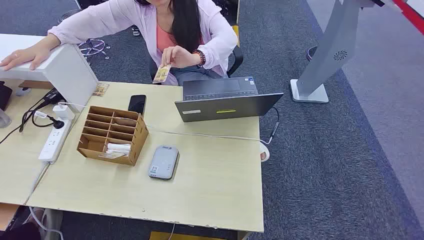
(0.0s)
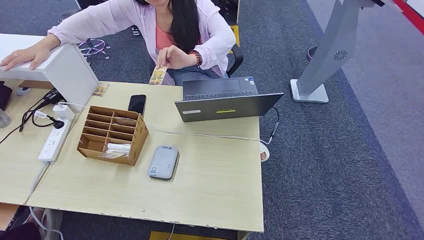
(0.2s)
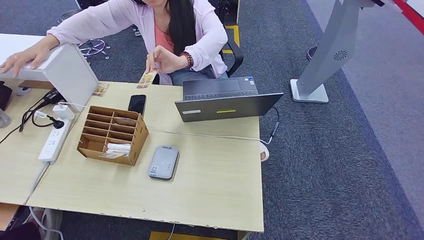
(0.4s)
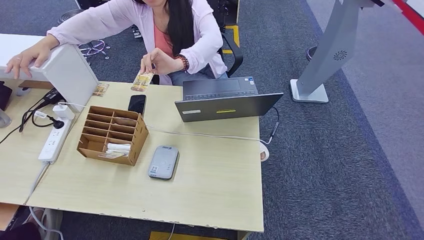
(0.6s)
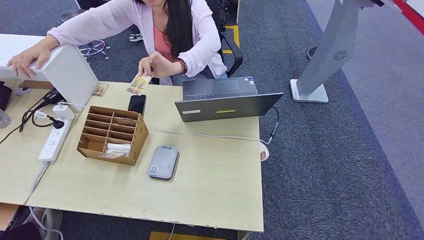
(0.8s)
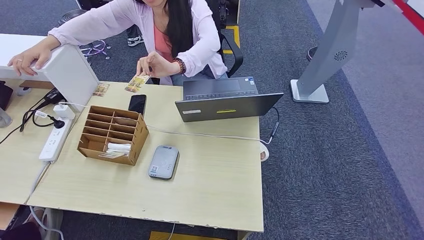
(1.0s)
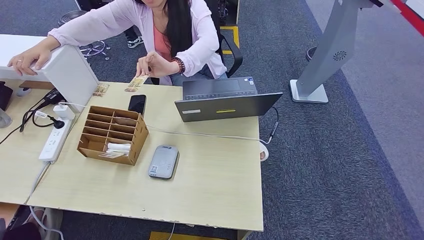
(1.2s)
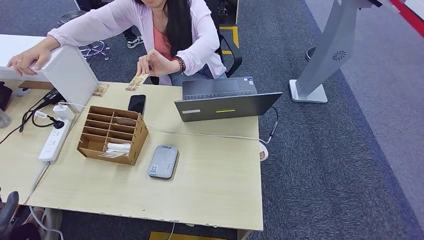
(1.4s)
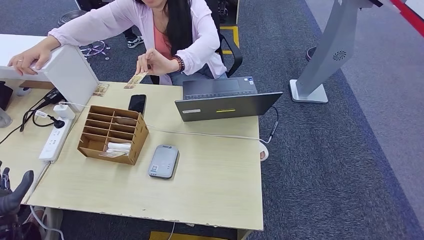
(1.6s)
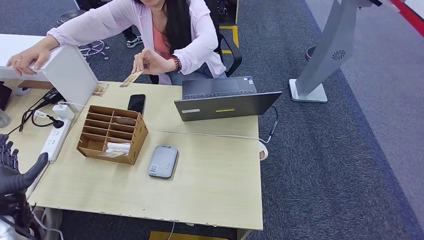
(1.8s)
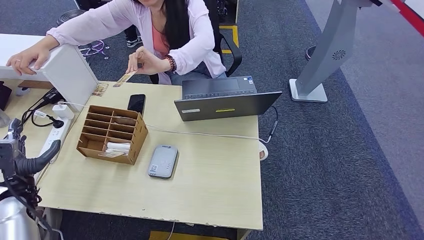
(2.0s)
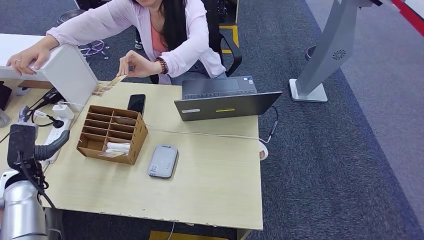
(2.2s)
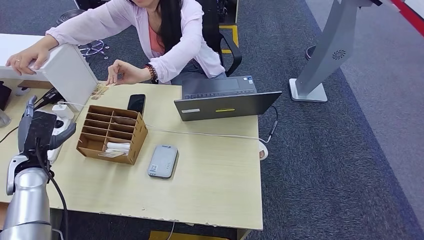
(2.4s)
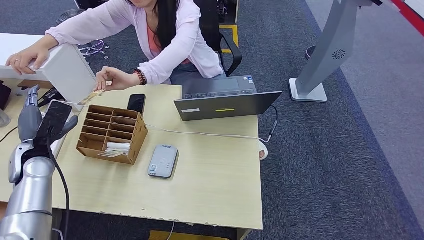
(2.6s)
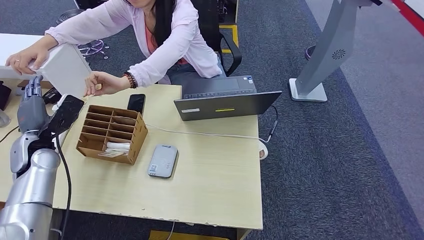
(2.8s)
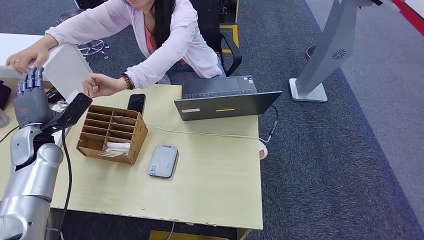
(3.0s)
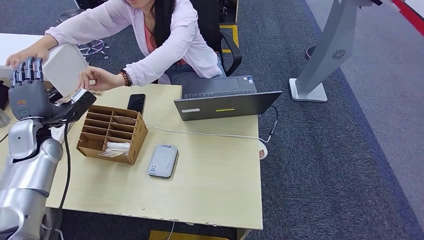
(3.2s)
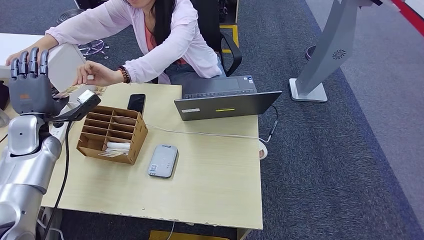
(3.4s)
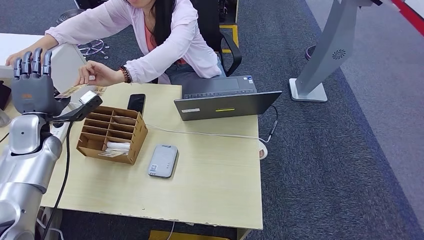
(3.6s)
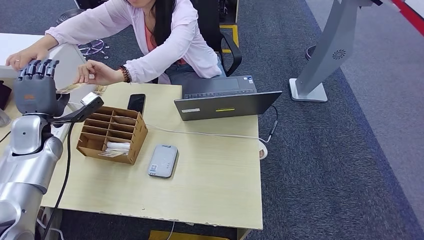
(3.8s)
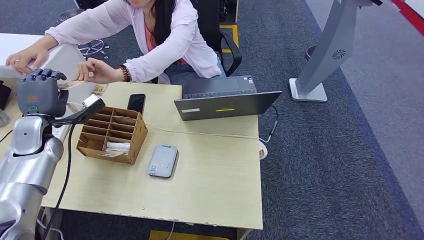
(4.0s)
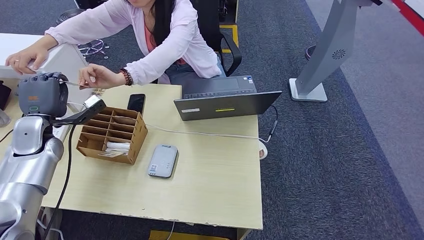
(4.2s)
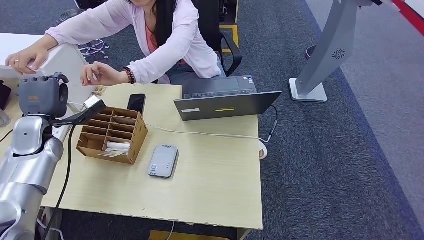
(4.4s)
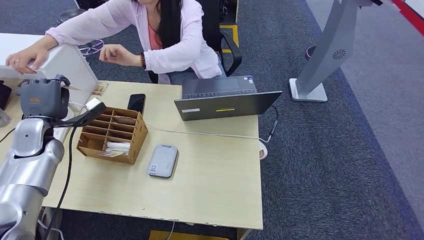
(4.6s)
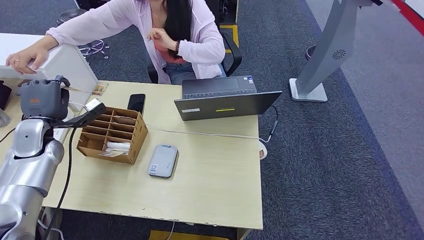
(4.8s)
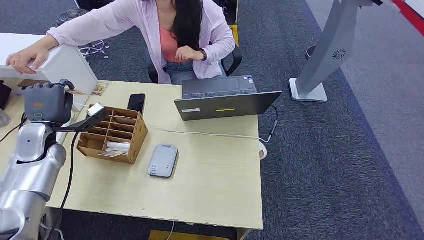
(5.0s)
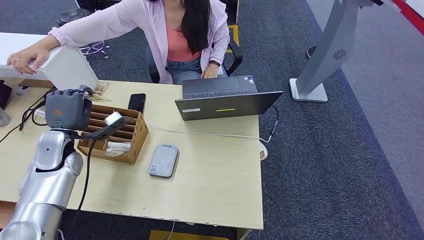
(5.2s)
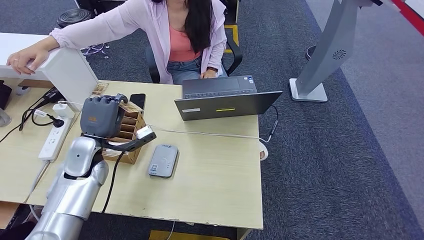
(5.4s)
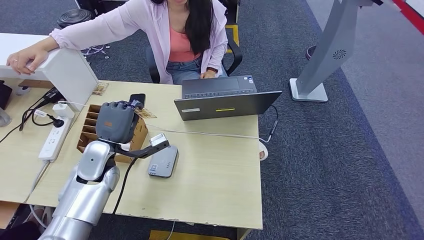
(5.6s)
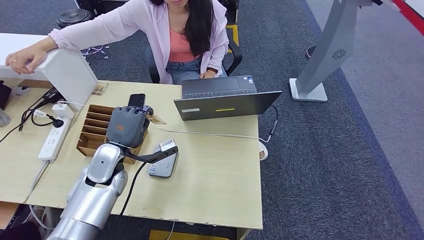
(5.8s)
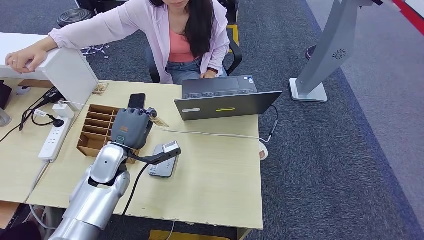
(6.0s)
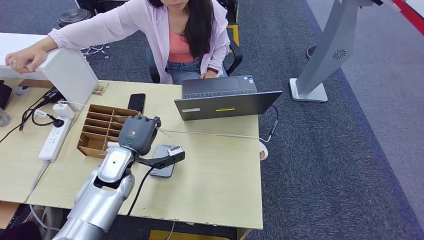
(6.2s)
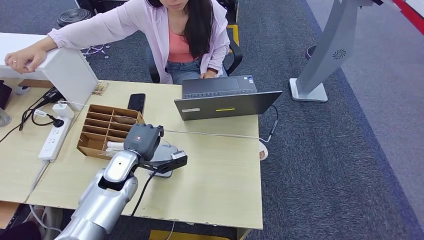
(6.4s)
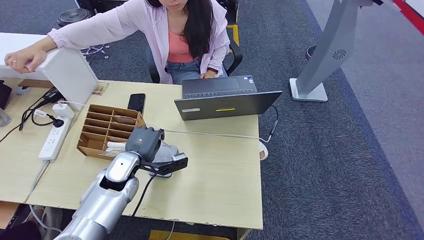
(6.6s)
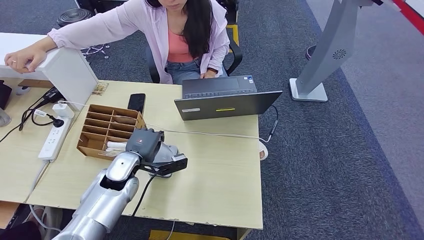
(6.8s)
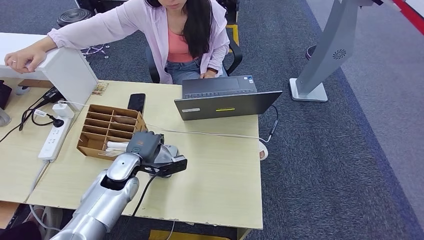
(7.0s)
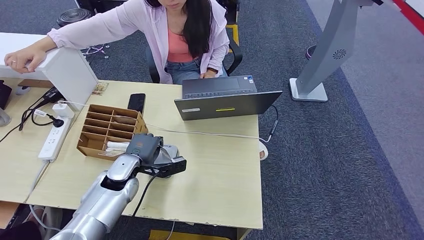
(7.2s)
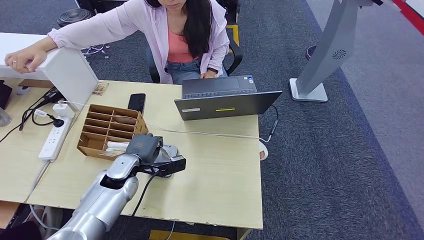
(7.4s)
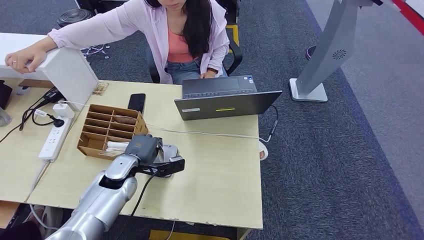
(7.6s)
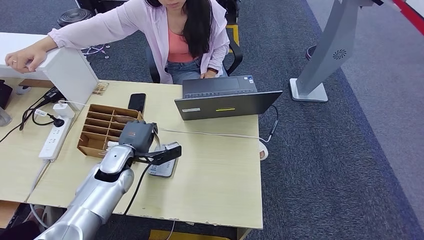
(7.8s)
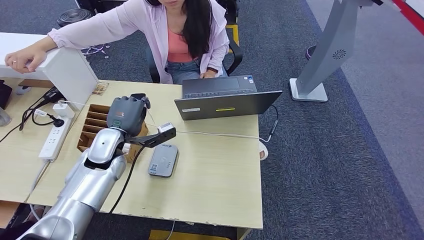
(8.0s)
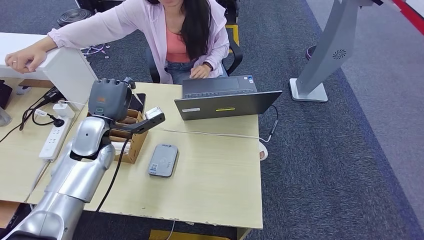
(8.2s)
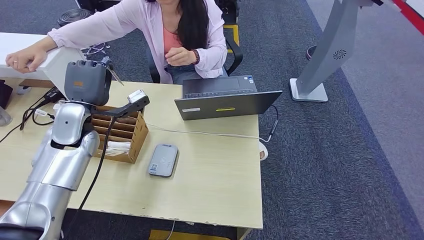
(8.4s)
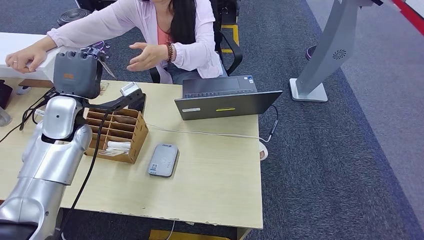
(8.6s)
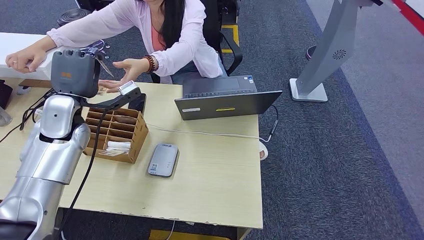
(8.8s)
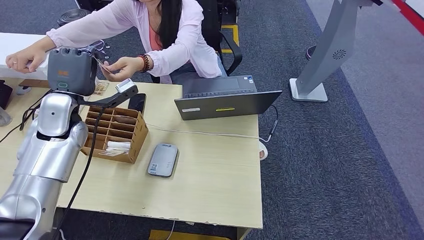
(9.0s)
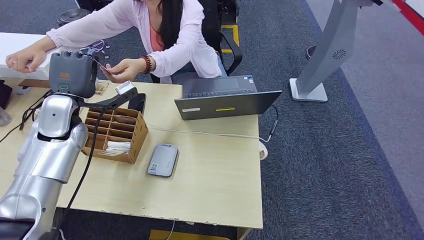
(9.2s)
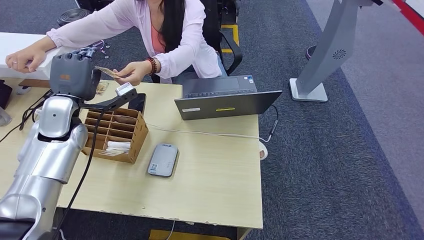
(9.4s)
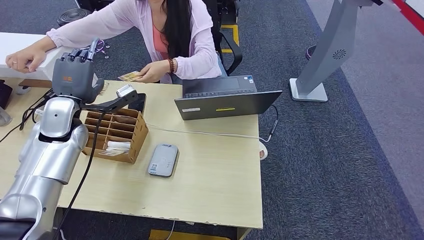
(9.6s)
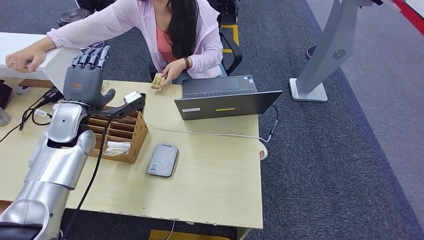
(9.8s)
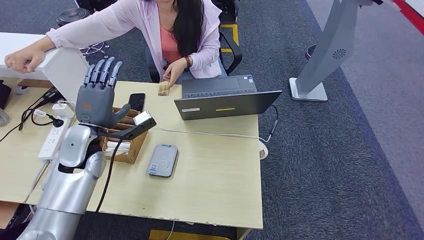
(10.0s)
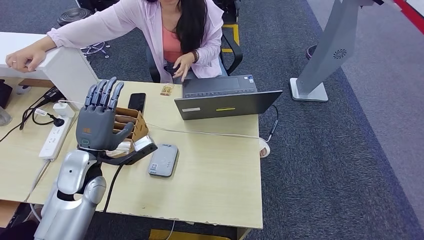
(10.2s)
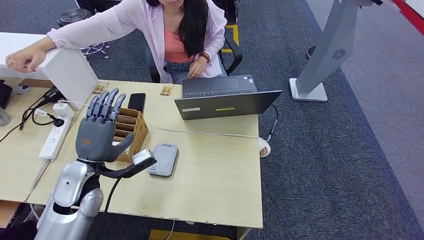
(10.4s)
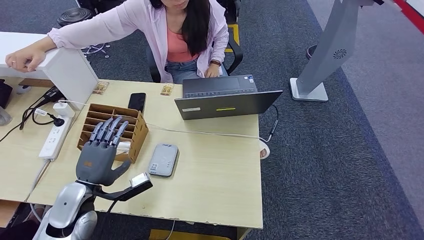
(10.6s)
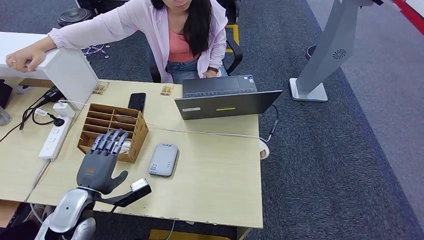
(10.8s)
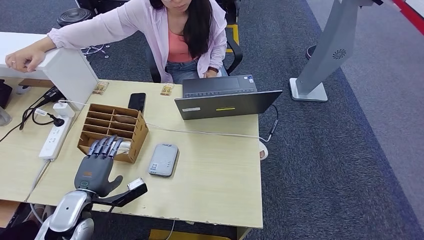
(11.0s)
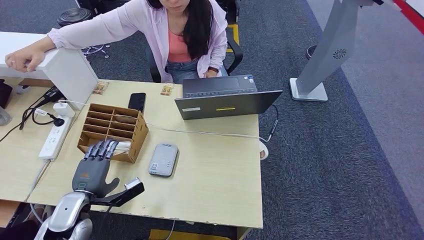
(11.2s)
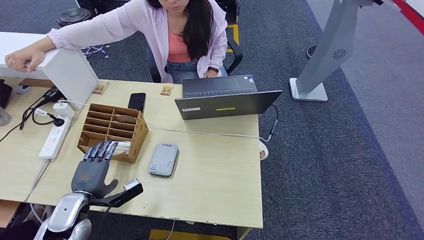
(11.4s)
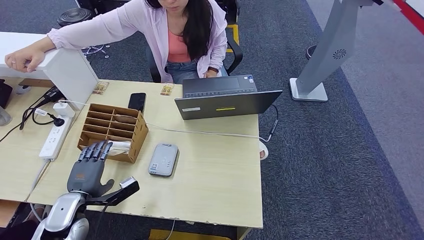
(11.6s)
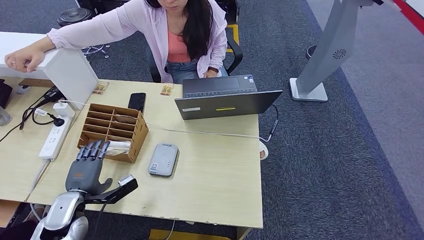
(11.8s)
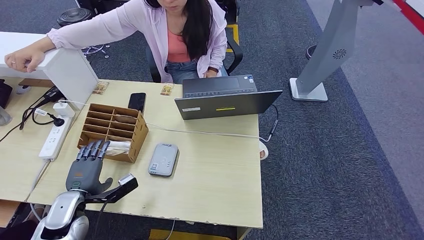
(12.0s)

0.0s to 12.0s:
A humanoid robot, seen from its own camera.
Step, 0.0s to 4.2s: Take the ID card from the person's hand.
Step, 4.8s to 7.6s: Place the ID card on the card reader.
Step, 7.8s to 9.4s: Hand the ID card to the person.
1.6s to 3.0s: The left hand heads forward, upward and to the right, covering roughly 25 cm.
6.0s to 7.6s: The left hand travels downward by some 5 cm.
10.4s to 12.0s: The left hand goes approximately 10 cm downward and to the left.

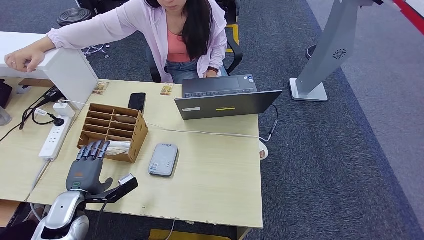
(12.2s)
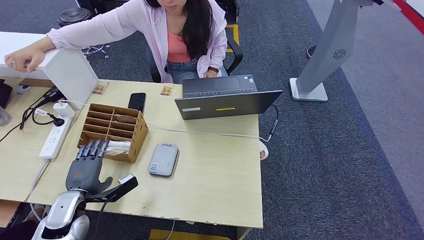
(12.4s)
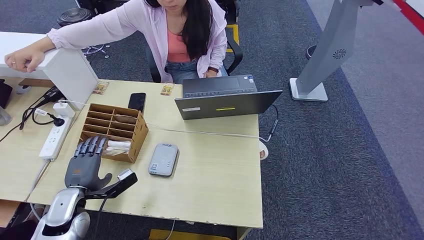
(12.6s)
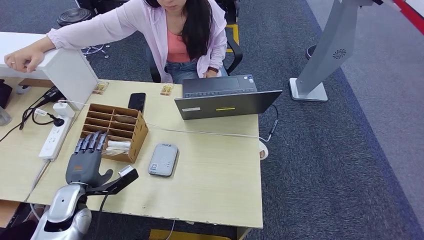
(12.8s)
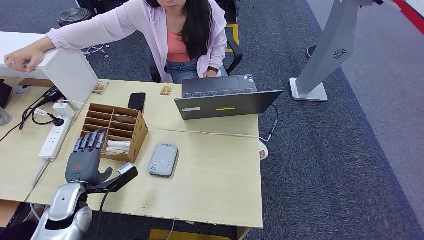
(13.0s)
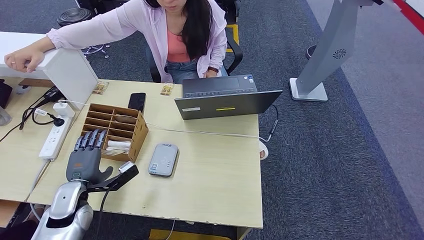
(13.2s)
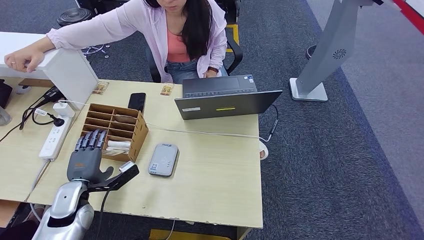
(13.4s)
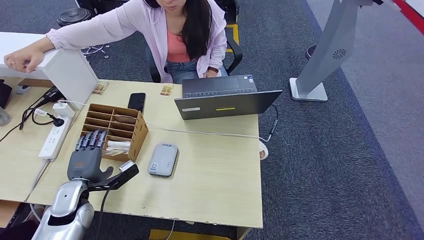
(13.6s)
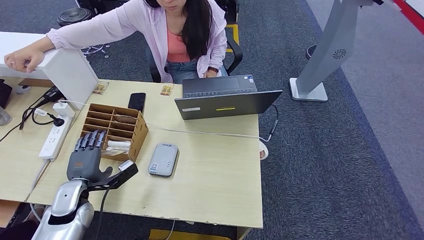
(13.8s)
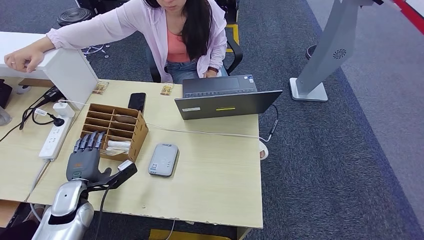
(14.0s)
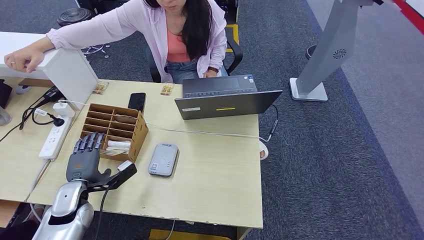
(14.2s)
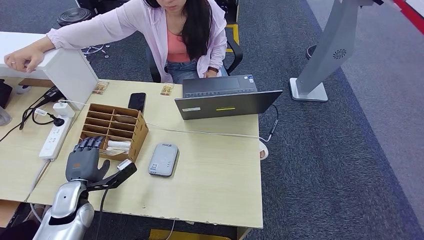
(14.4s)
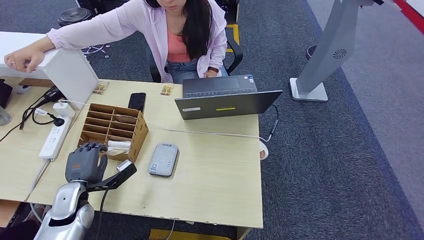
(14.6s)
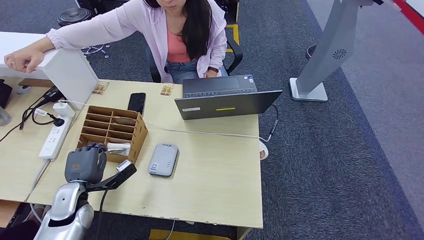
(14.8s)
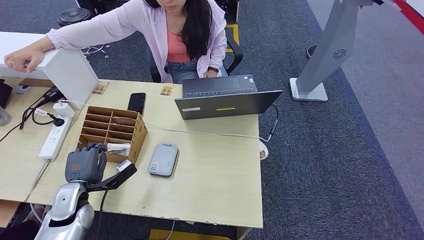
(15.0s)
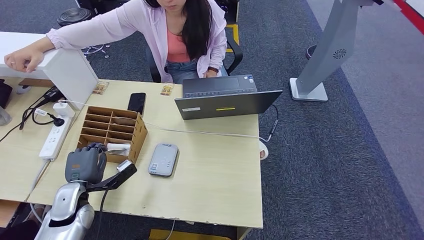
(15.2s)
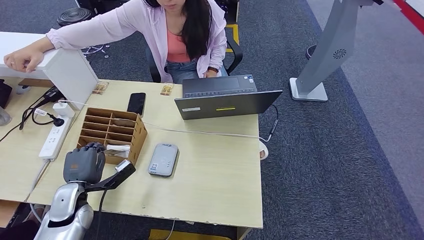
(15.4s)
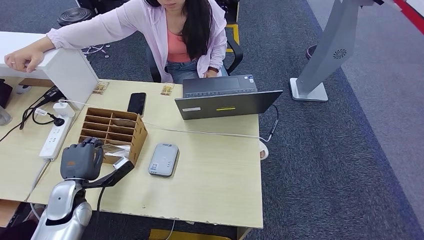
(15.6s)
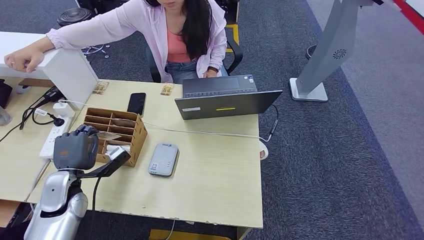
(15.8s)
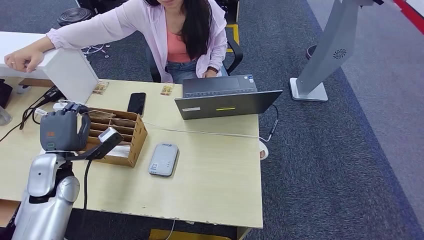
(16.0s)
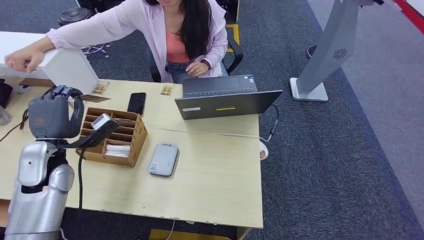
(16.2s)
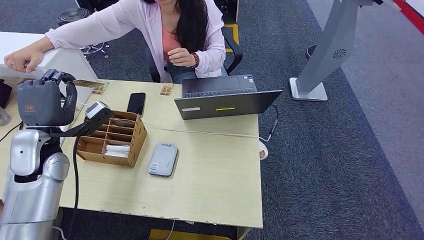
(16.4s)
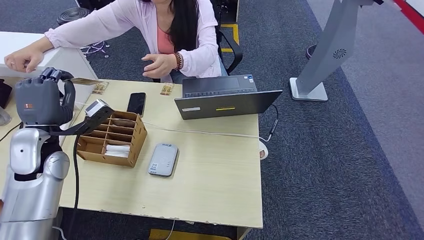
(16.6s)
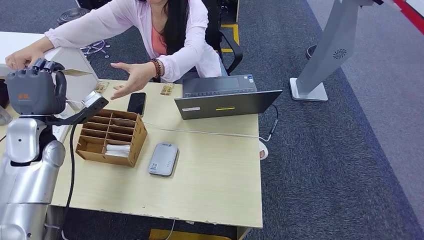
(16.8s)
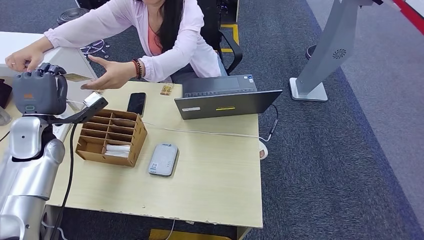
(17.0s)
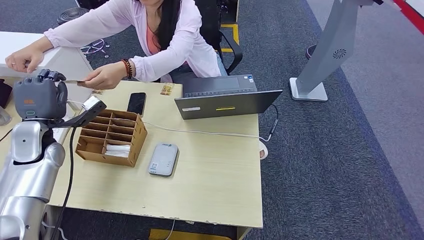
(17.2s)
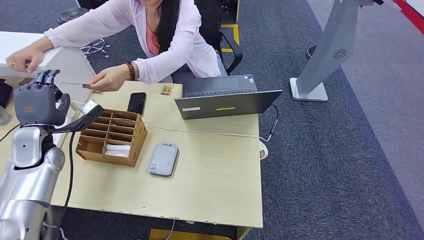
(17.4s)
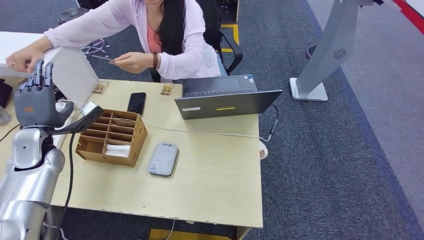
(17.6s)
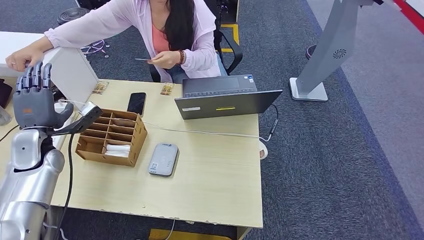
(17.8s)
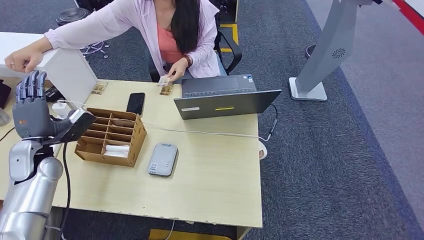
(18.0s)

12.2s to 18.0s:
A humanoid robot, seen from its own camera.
Step, 12.2s to 15.8s: Pick up the room key from the key card box.
Step, 16.0s to 18.0s: Hand the room key to the person.
12.2s to 15.0s: The hands make only small movements.
15.0s to 16.6s: The left hand travels upward and forward by approximately 20 cm.
16.6s to 18.0s: The left hand shifts approximately 10 cm downward and to the left.
